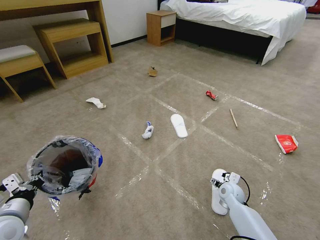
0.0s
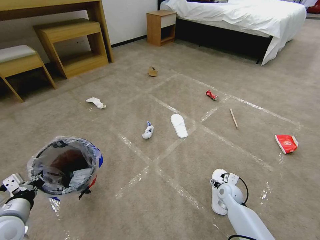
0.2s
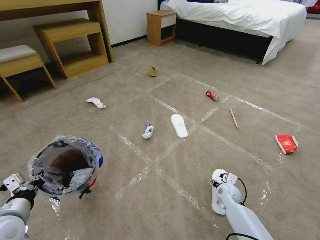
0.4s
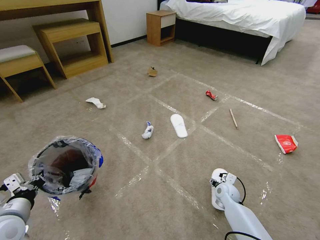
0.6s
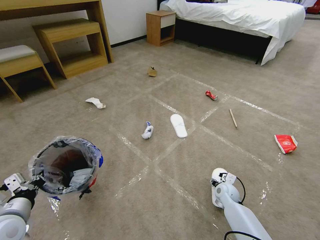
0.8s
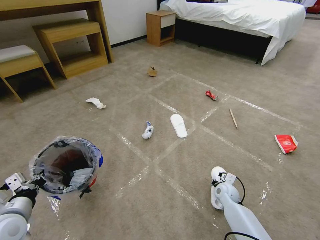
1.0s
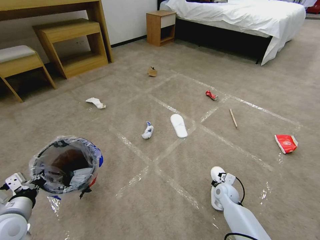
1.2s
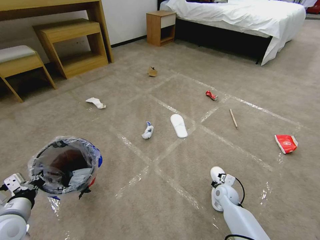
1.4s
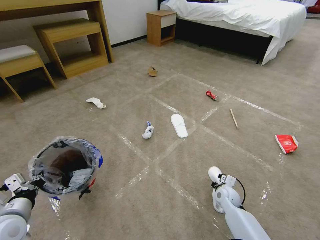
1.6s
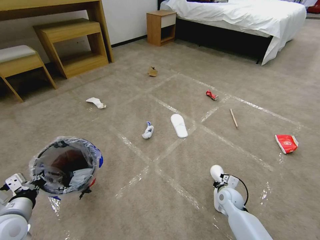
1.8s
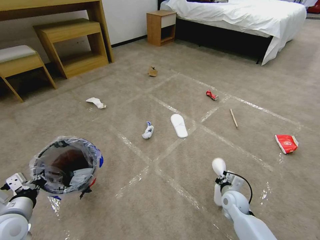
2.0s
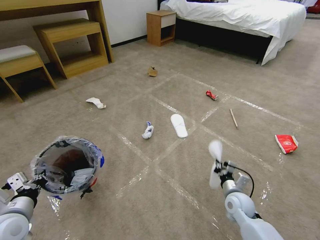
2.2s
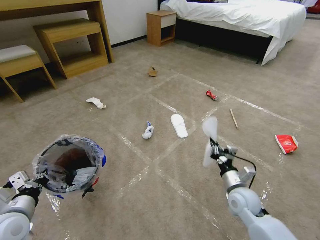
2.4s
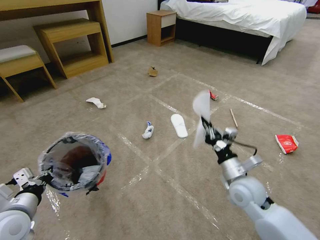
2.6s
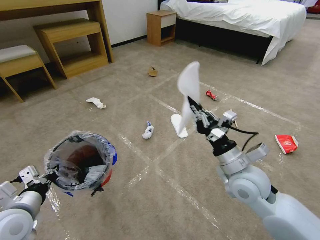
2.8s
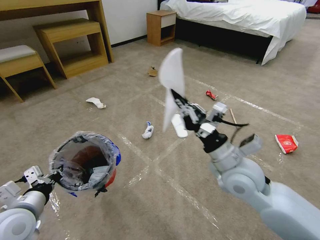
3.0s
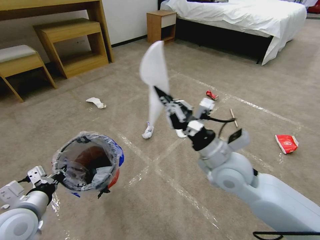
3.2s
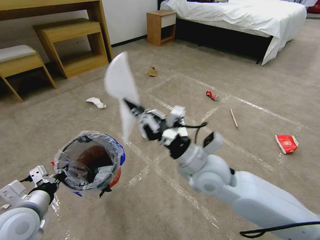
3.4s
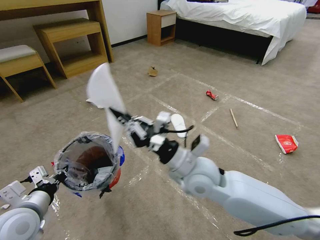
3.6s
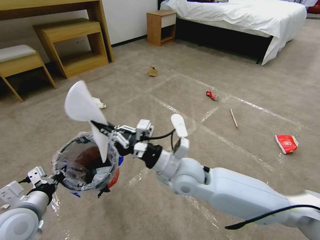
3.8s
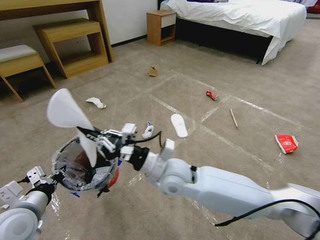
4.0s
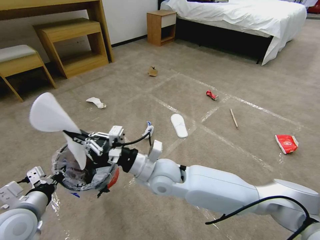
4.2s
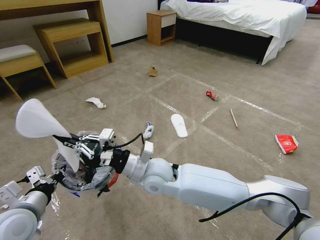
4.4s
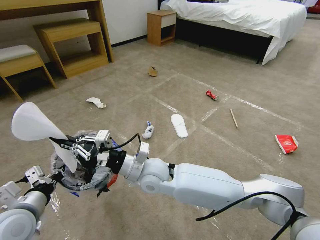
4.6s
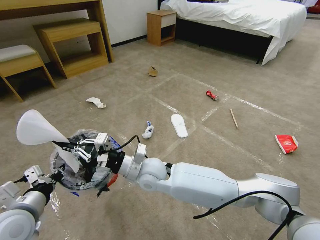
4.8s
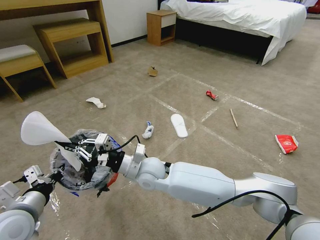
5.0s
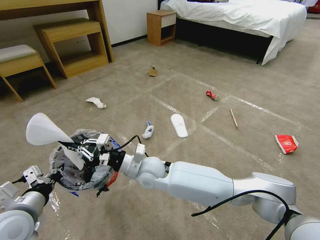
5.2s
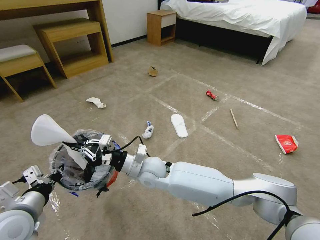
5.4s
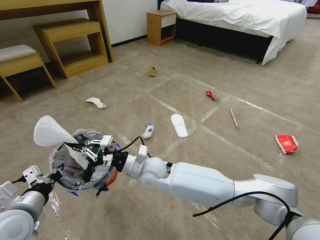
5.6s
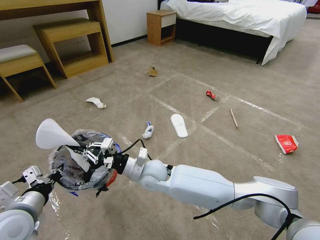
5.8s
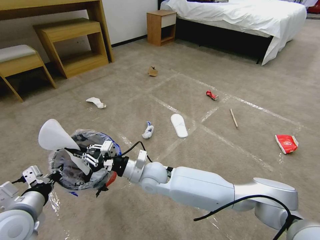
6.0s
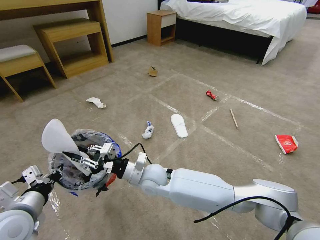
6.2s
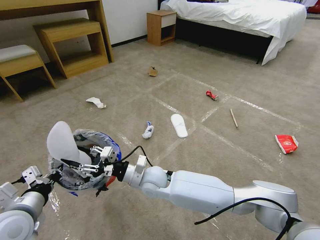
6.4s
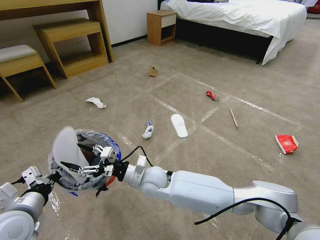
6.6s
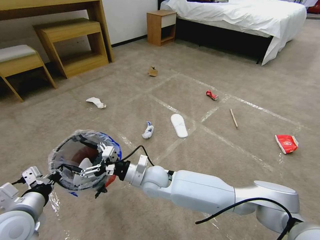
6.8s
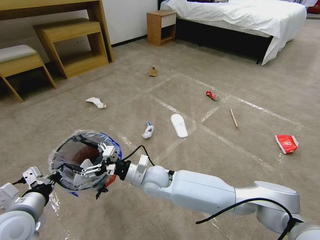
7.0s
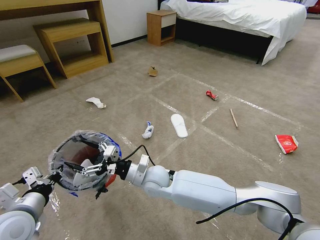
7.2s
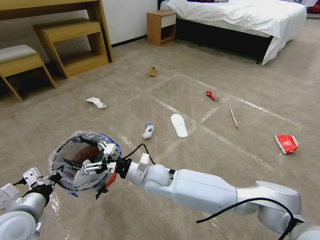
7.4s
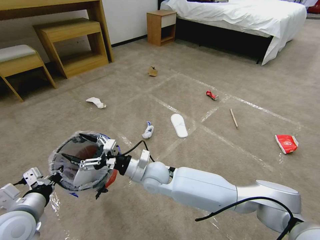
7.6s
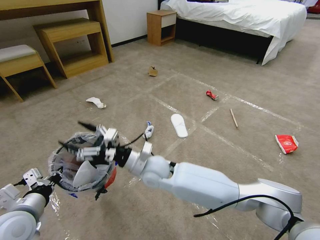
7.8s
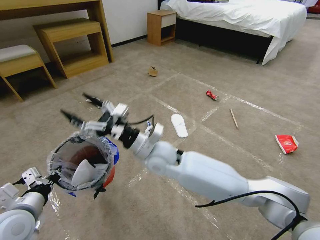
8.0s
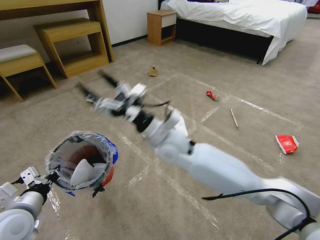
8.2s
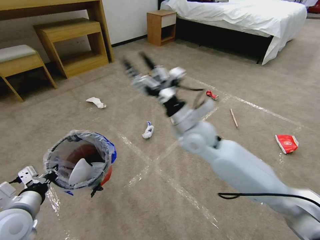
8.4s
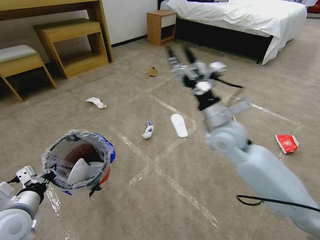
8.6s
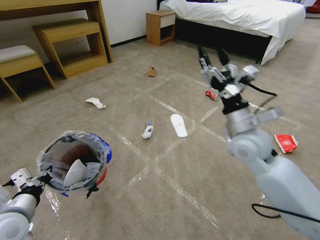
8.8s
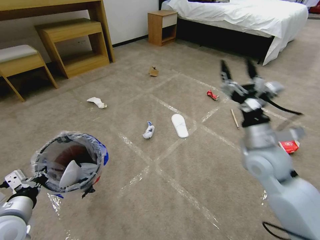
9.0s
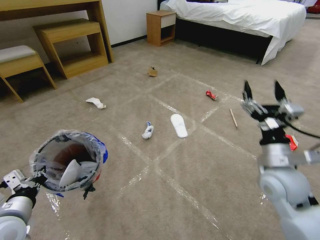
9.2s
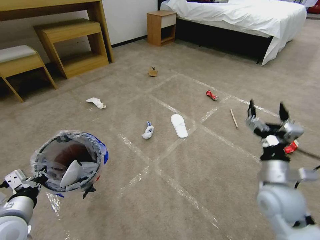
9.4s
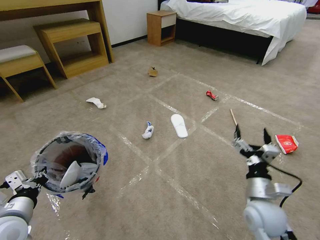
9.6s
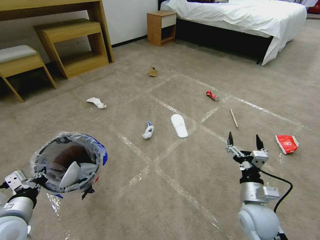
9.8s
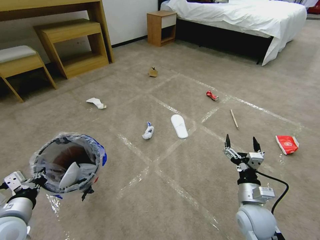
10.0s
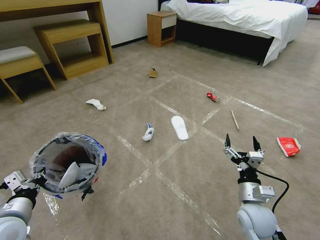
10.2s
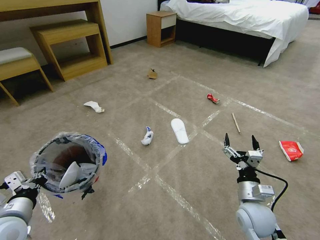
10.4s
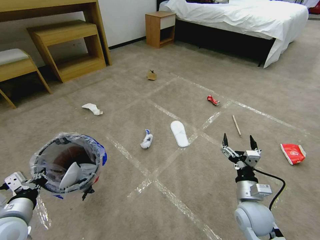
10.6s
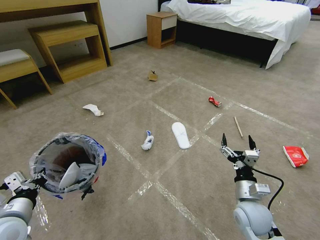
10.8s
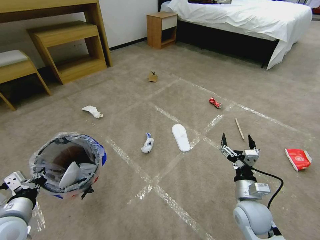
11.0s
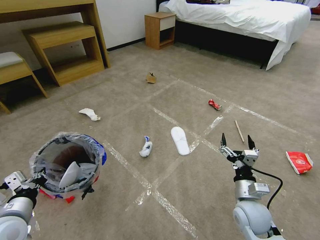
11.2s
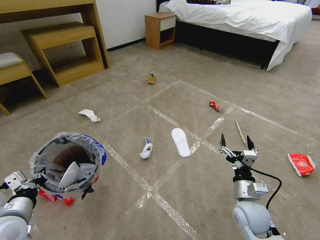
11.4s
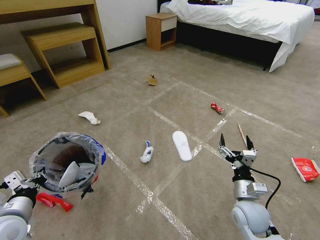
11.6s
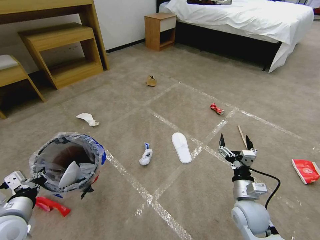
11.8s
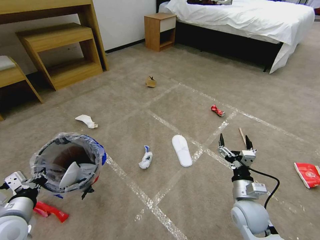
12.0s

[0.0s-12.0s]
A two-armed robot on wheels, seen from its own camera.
Task of the whole recording: Pick up the trash bin and place the garbage on the floor into it.
0.0s to 1.6s: The right gripper closes up.
1.6s to 3.0s: The left gripper moves approximately 5 cm; the right gripper is displaced upward by some 30 cm.
3.0s to 4.4s: The right gripper shifts approximately 20 cm to the left.
4.4s to 6.0s: The right gripper travels downward by approximately 5 cm.
6.0s to 7.6s: The right gripper opens its fingers.
7.6s to 9.0s: The right gripper goes approximately 35 cm to the right and upward.
9.0s to 10.4s: The right gripper is displaced downward and backward by some 20 cm.

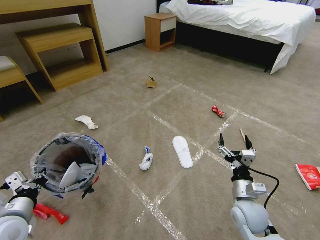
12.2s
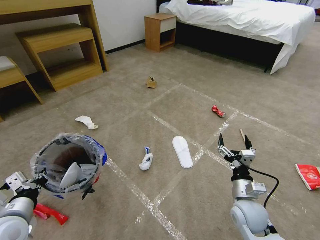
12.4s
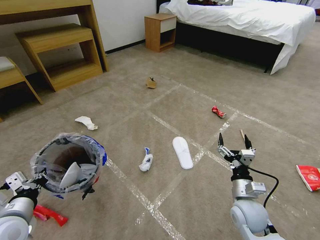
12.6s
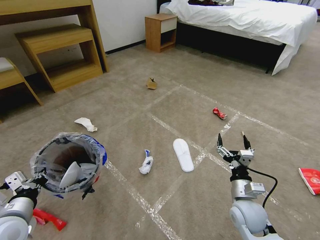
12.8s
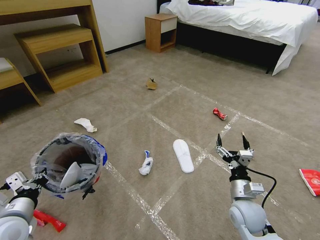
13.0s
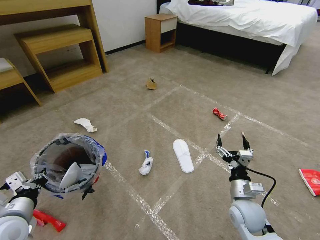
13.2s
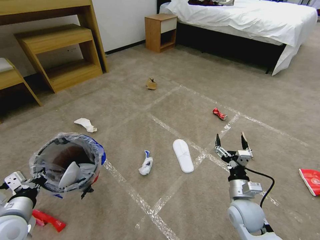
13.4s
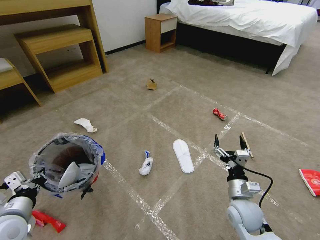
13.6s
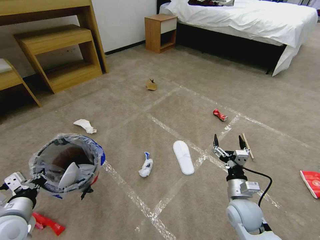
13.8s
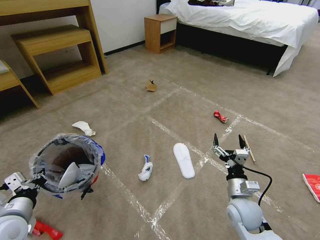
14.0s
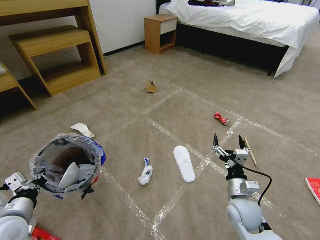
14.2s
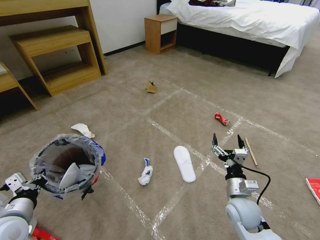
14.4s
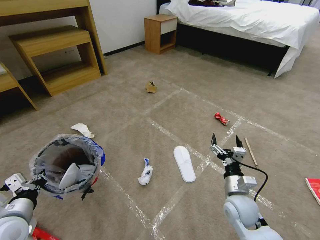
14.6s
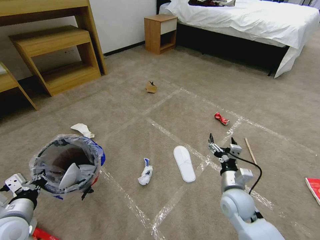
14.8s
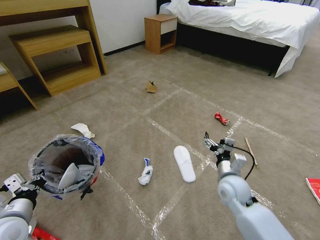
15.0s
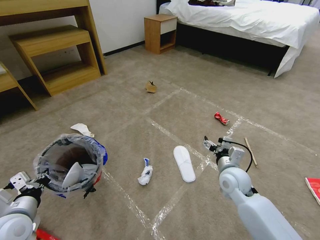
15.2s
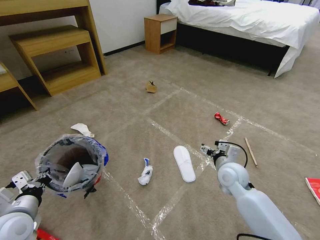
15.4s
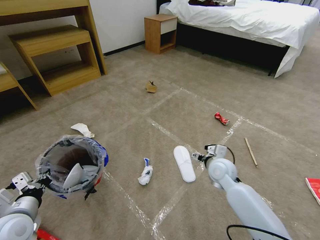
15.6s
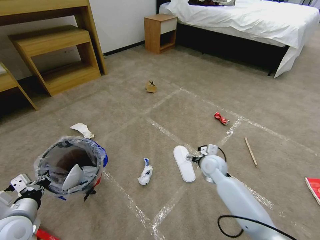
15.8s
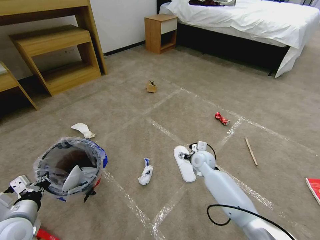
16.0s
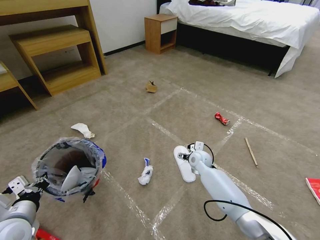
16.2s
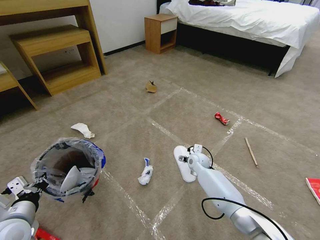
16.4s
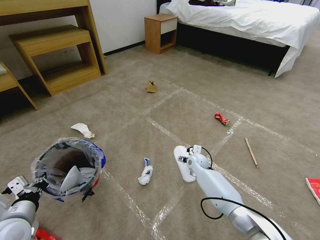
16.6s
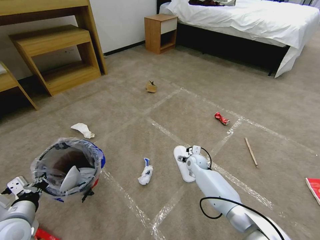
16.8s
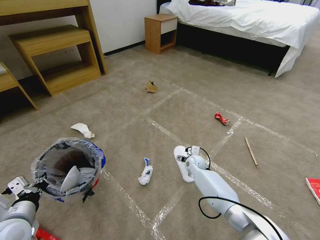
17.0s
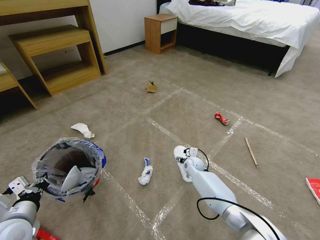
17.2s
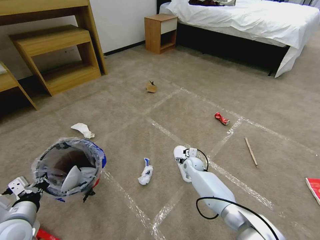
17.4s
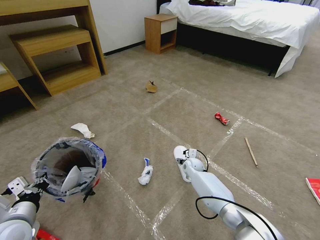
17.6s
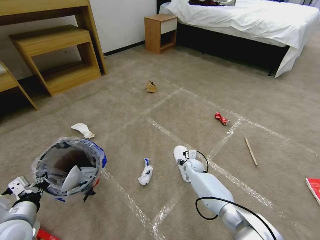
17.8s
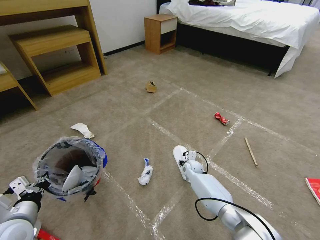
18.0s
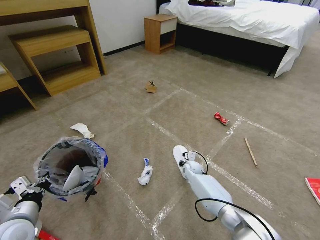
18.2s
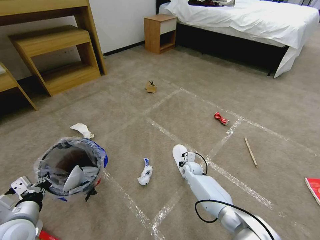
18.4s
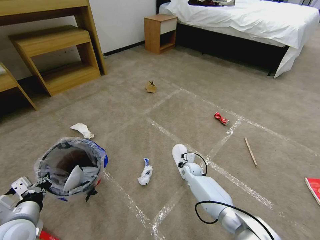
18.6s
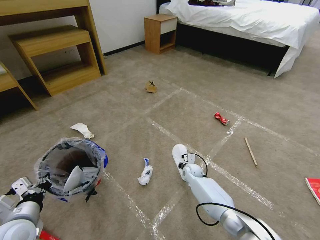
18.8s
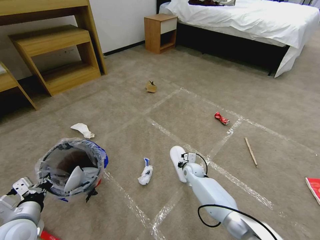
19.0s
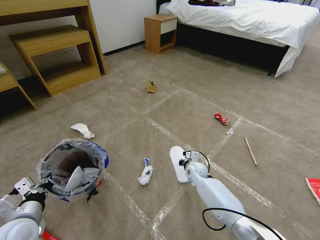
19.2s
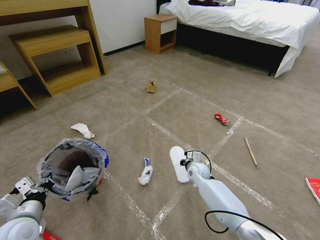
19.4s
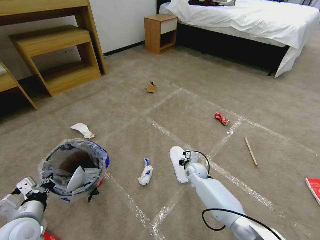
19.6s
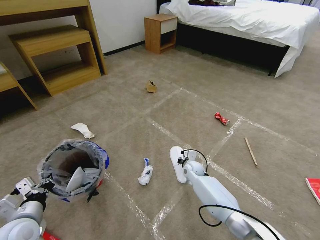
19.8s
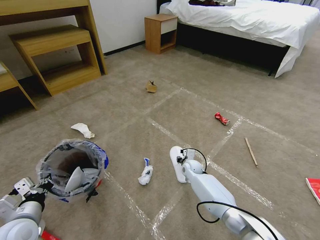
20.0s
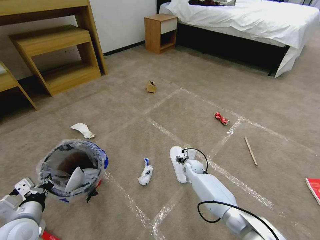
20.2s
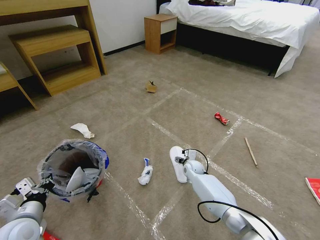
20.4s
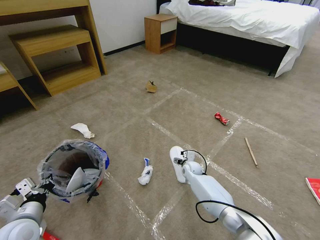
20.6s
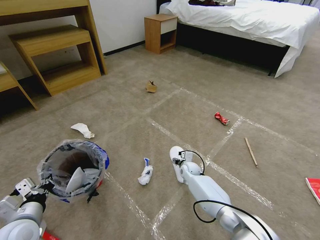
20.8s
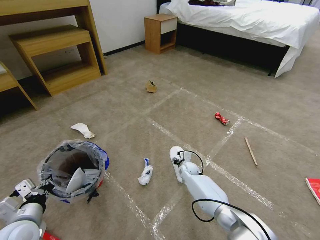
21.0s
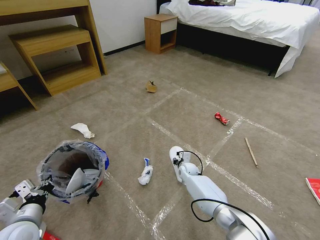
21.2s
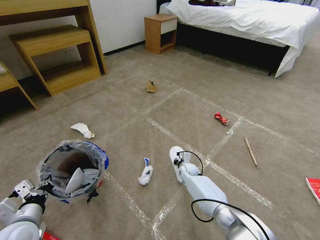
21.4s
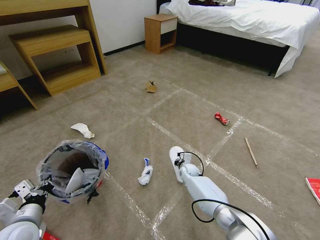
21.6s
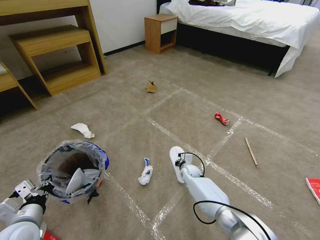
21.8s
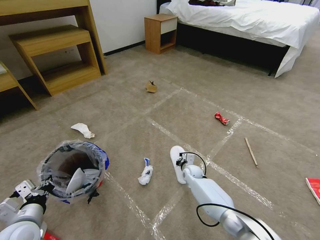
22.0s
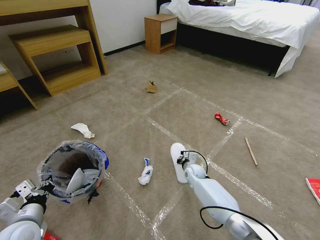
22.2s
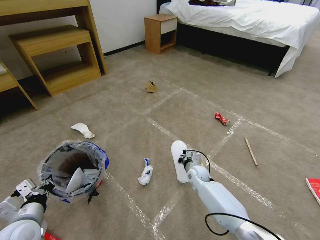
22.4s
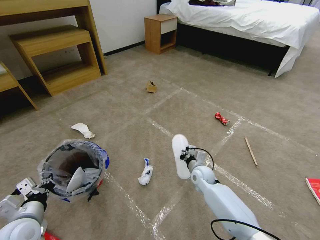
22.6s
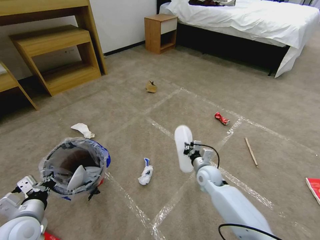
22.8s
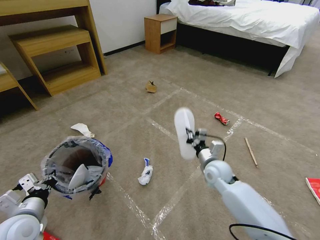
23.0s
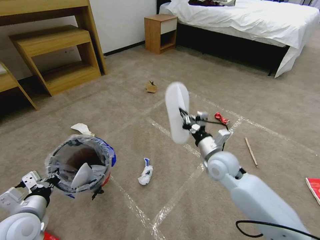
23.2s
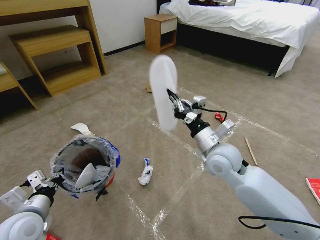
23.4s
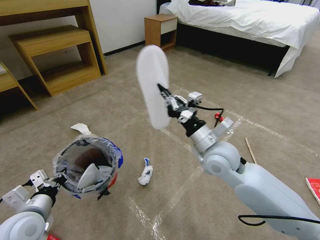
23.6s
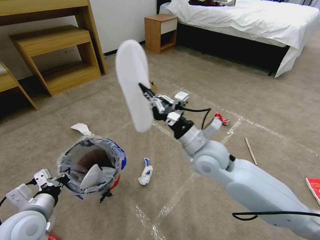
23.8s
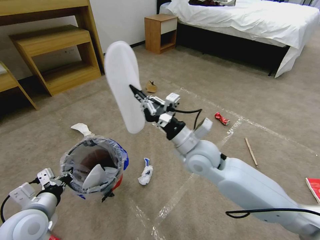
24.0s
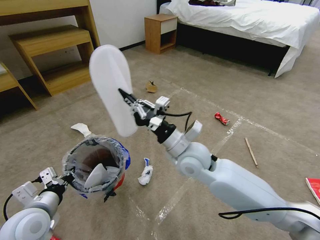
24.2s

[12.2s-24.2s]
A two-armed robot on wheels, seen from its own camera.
Task of the whole recording: Pick up the trash bin and place the garbage on the floor into it.
12.2s to 13.8s: Both grippers stay about where they are.
13.8s to 15.2s: The right gripper heads forward, covering roughly 10 cm.
15.2s to 16.6s: The right gripper heads forward, downward and to the left, covering some 20 cm.
16.6s to 18.2s: The right gripper is displaced downward by approximately 5 cm, and closes up.
18.2s to 19.8s: The grippers make only small movements.
19.8s to 21.2s: The right gripper opens, then closes once more.
21.2s to 22.6s: The right gripper travels upward and backward by some 10 cm, and closes its fingers.
22.6s to 24.2s: The right gripper shifts approximately 25 cm upward and to the left, while the left gripper changes place by roughly 5 cm.
